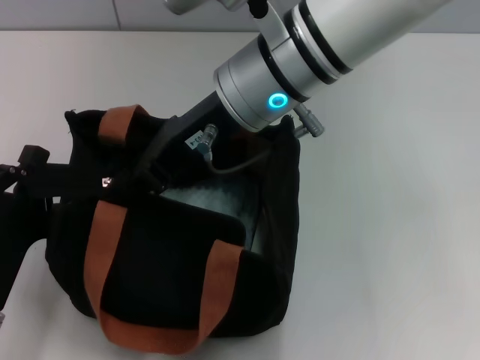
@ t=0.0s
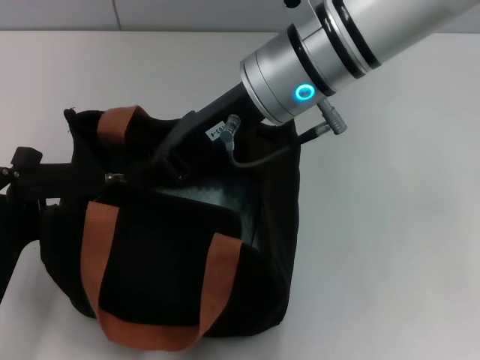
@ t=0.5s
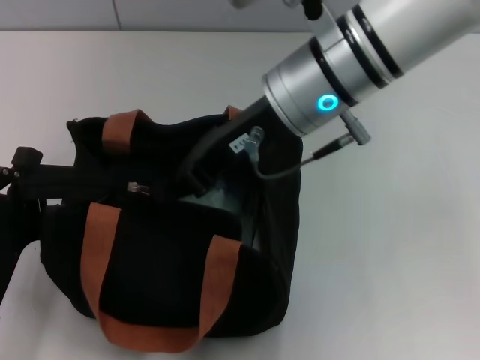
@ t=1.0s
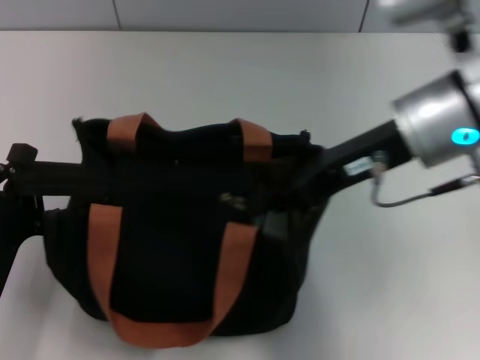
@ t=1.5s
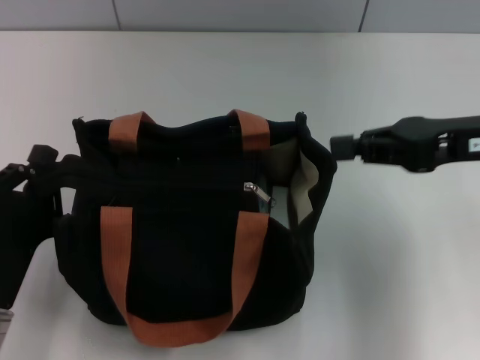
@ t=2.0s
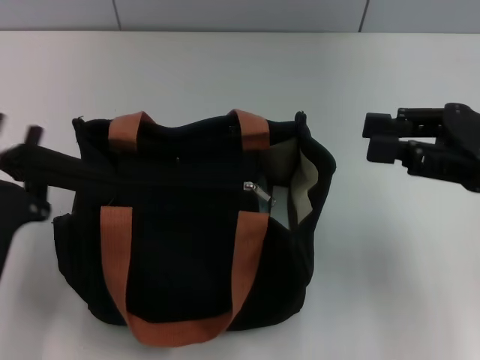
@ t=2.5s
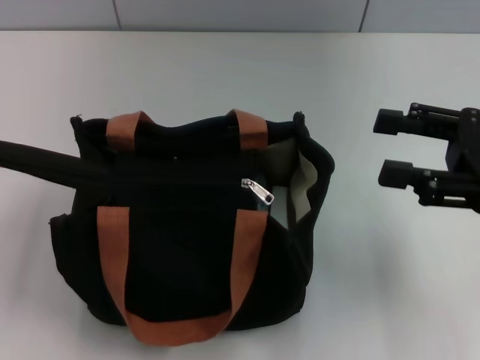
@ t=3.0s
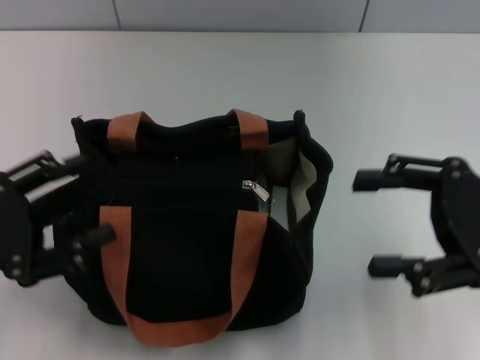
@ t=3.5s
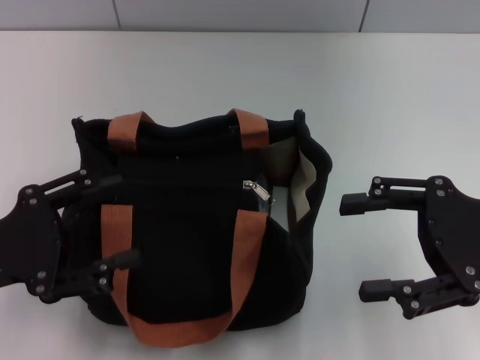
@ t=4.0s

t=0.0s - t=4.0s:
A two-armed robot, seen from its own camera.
Step, t=2.0s - t=3.0s: Grab the zipper with your left hand.
t=0.0s - t=2.0s: The right gripper goes about 25 cm to the right.
t=2.0s - t=4.0s: The right gripper ends up about 5 cm from where it was, and opens its fingers. The left gripper is displaced upward and to the left by some 10 cm, and opens up.

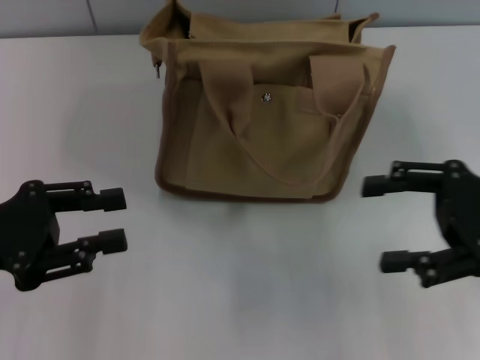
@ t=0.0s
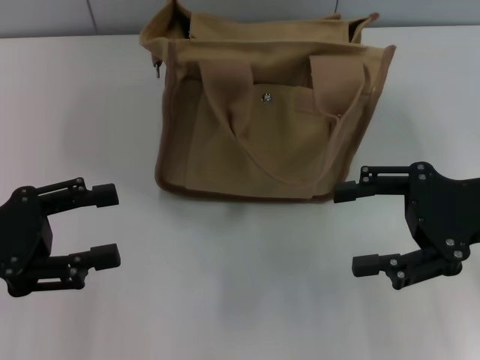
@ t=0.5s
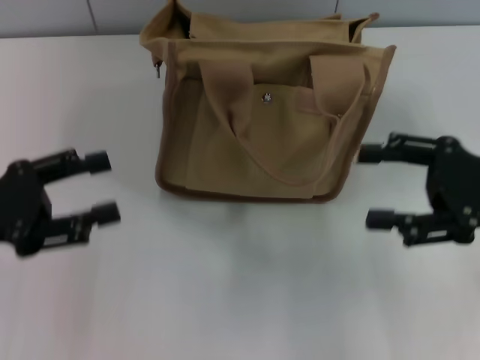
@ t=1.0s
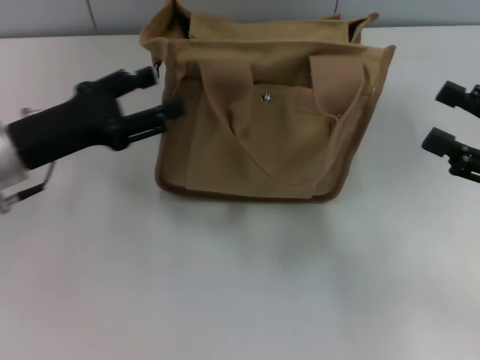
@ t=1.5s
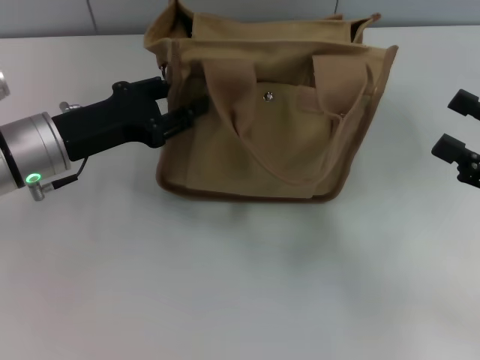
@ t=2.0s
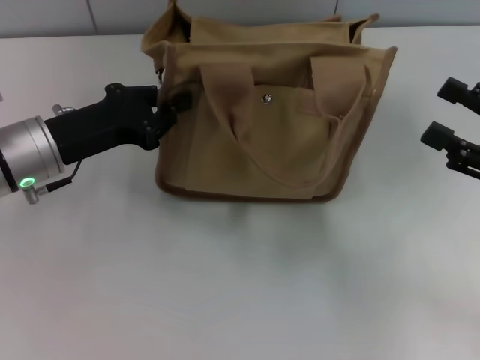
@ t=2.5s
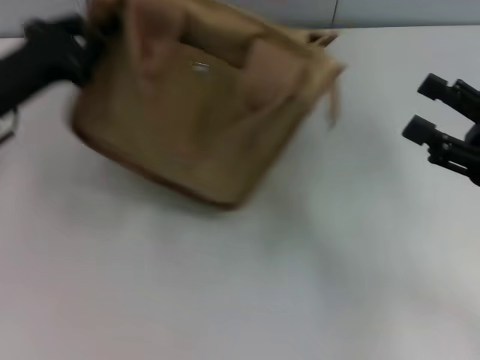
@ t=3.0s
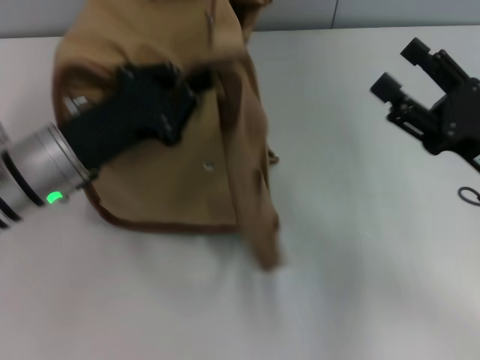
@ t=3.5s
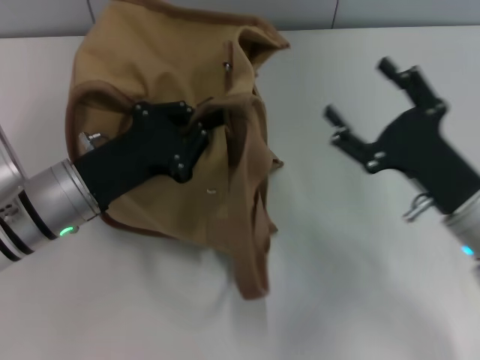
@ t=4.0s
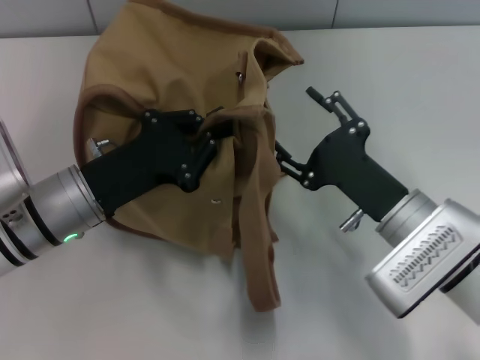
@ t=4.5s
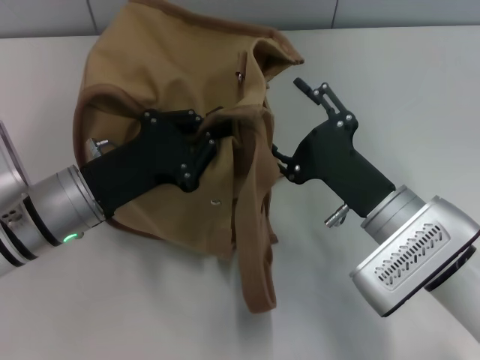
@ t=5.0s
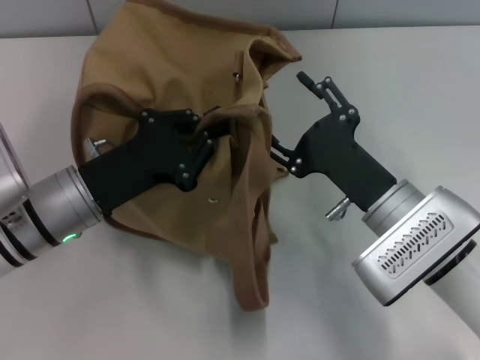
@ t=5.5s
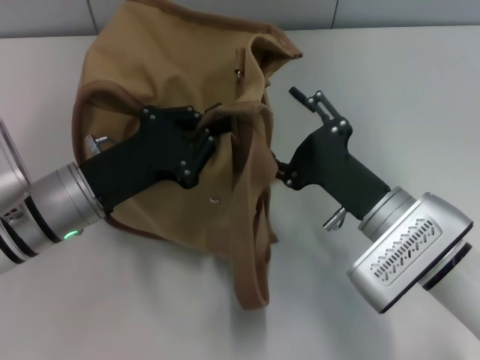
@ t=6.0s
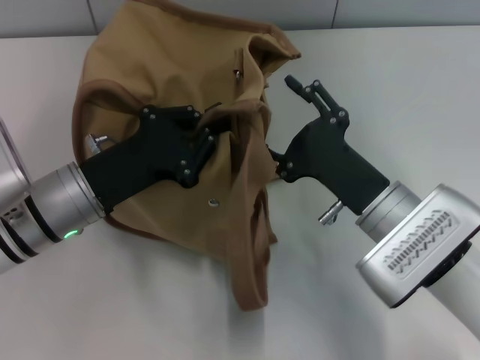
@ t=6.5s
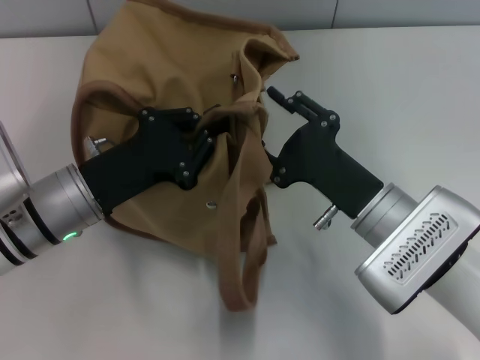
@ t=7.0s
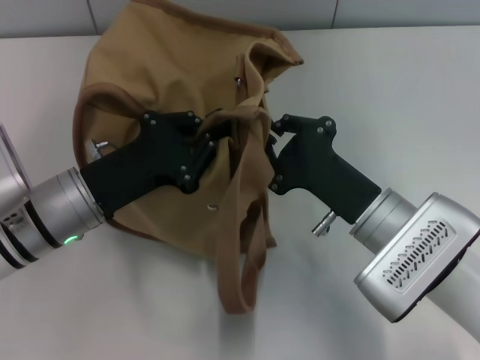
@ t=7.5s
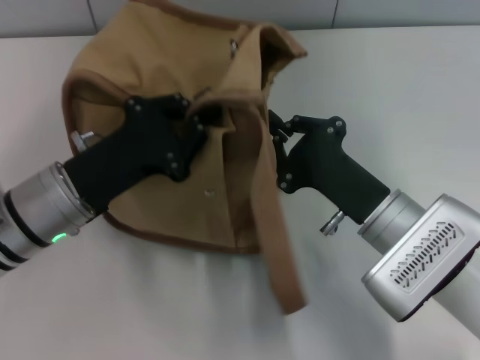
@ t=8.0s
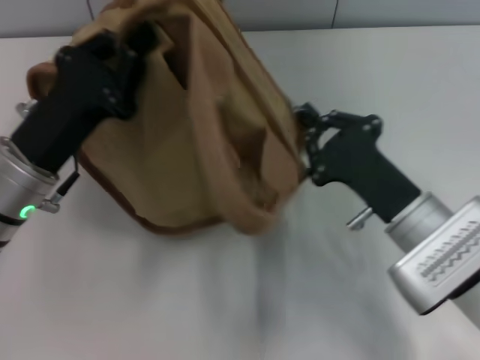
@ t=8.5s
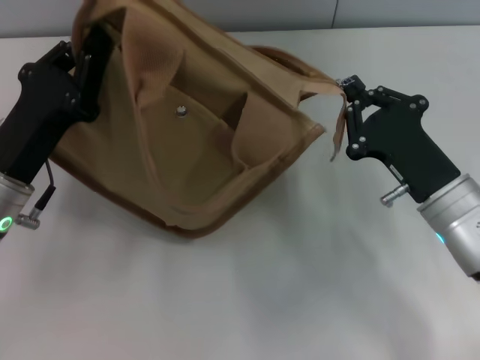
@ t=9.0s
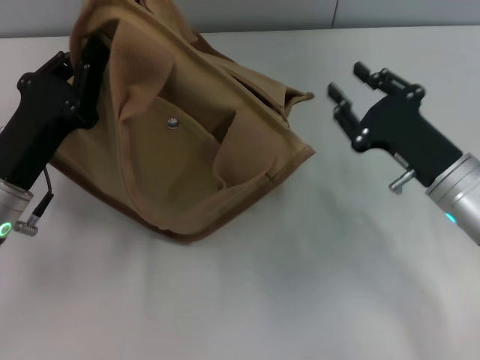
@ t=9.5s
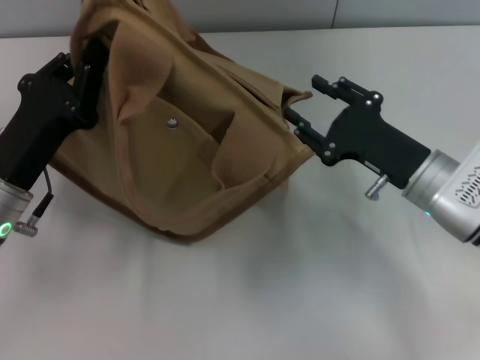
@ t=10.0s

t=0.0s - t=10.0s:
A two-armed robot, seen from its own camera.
Step, t=0.0s - t=9.0s: Pull open the zipper with your right hand.
t=0.0s - t=2.0s: The left gripper travels forward and to the right by approximately 15 cm, and opens. The right gripper changes place by roughly 5 cm.
t=2.0s - t=4.0s: The left gripper travels to the left and back again, roughly 5 cm each way, and closes its fingers; the right gripper is displaced to the left and downward by approximately 15 cm.
t=4.0s - t=6.0s: The right gripper goes roughly 5 cm to the left.
t=6.0s - t=8.0s: The right gripper closes its fingers.
t=8.0s - t=10.0s: The right gripper shifts about 5 cm to the right, and opens.

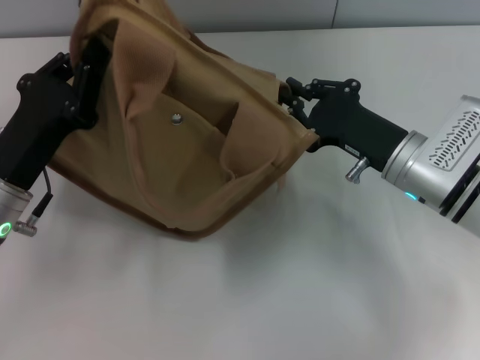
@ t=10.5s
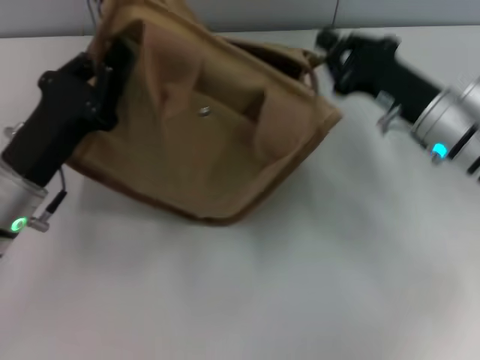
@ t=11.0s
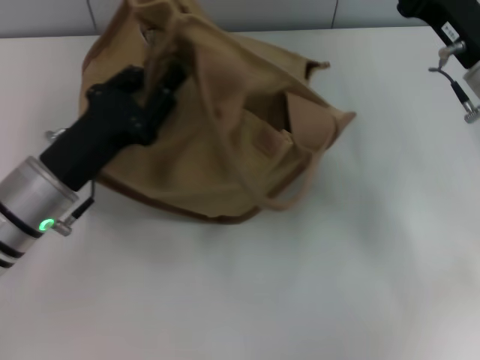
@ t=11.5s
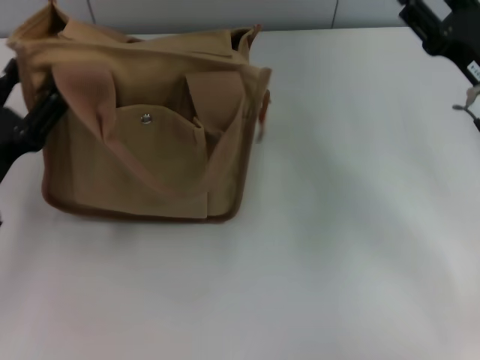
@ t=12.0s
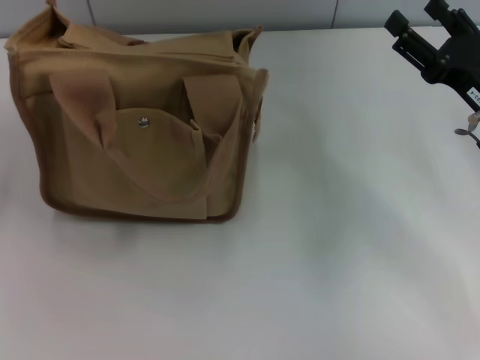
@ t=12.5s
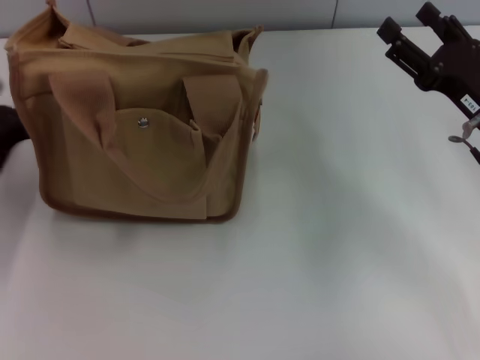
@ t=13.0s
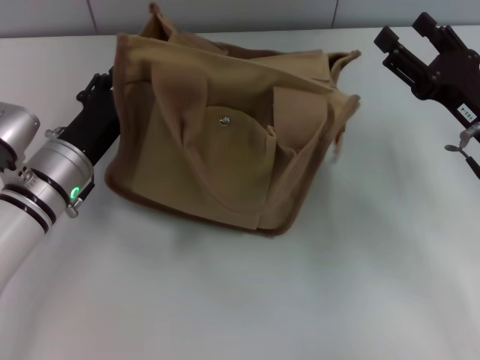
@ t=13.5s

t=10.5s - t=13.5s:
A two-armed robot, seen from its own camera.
Step, t=10.5s - t=12.0s: Grab the bag with your left hand.
t=10.5s - t=12.0s: The left gripper opens up. Meanwhile the right gripper moves to the right, roughly 10 cm, and opens its fingers.
t=12.0s - t=13.5s: The left gripper heads forward and to the right, covering about 10 cm, while the right gripper opens its fingers.
